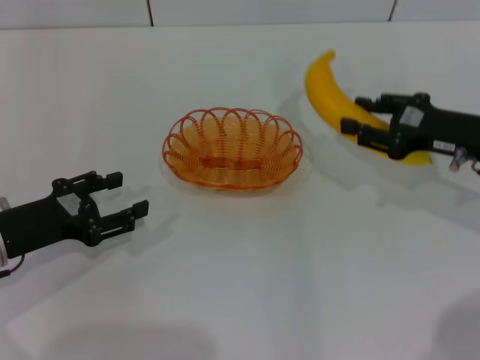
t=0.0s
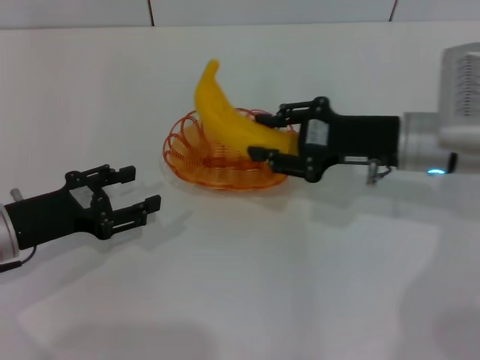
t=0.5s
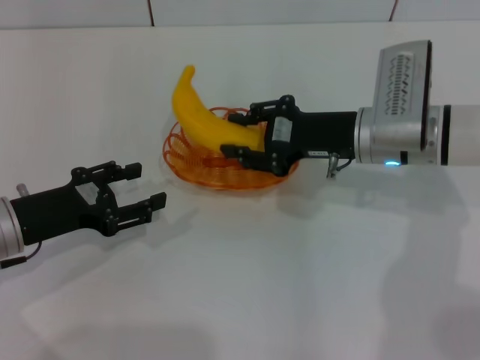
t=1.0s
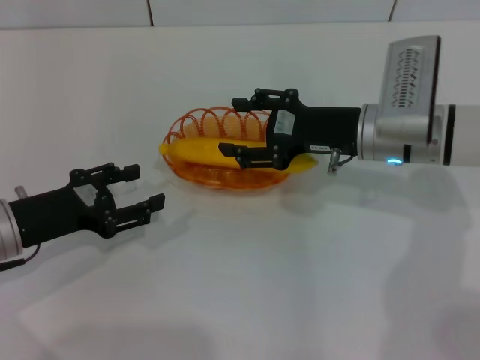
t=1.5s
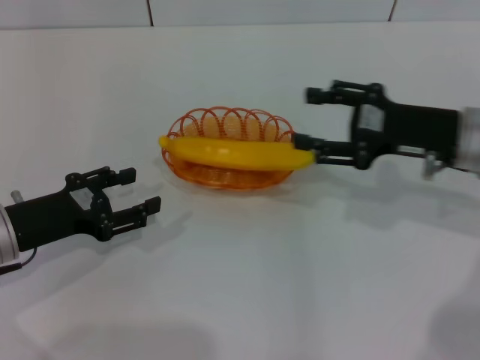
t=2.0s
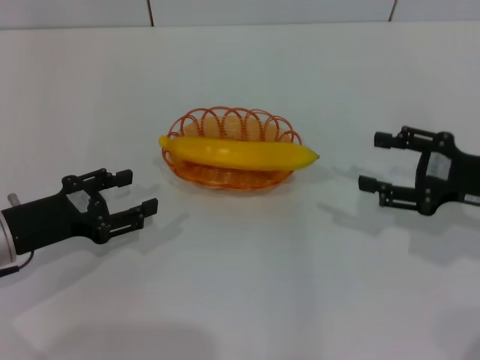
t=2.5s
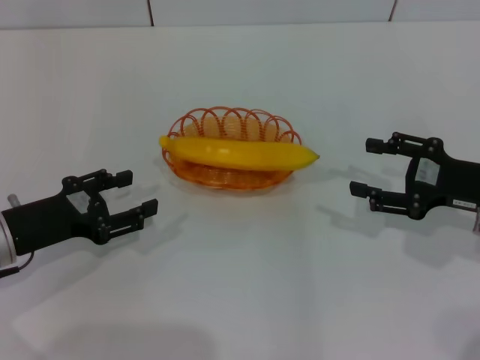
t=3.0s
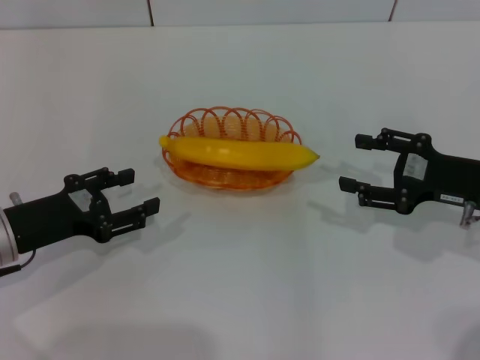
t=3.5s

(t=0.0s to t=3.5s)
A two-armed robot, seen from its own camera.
Step, t=0.0s - t=1.5s: Place the banana into the basket with the right gripper.
t=0.0s - t=2.0s: The right gripper travels to the left and back again, some 10 cm each way, and opens.
t=2.0s - t=3.5s: The right gripper shifts by approximately 5 cm.
